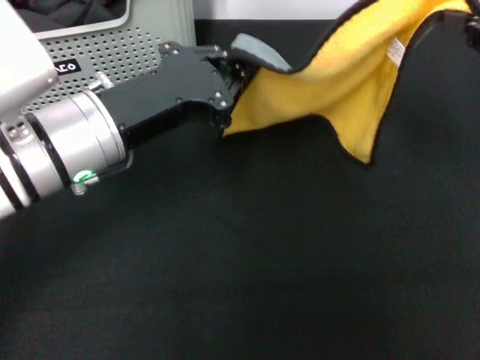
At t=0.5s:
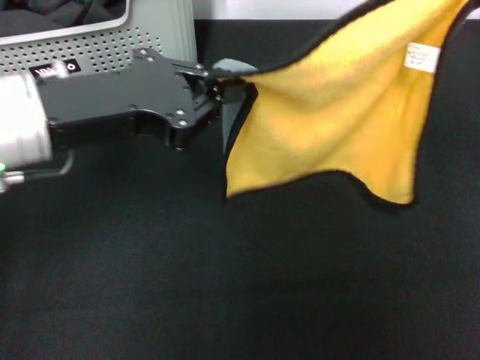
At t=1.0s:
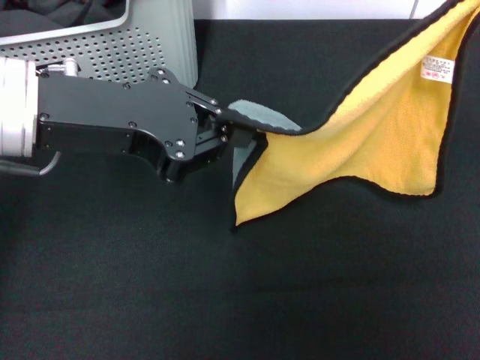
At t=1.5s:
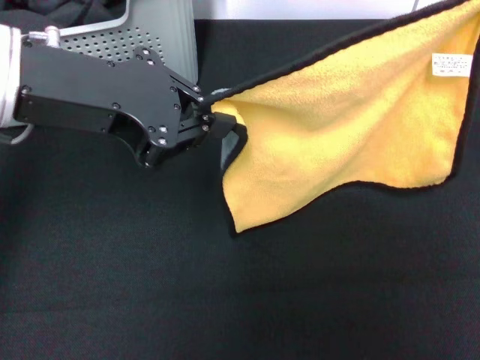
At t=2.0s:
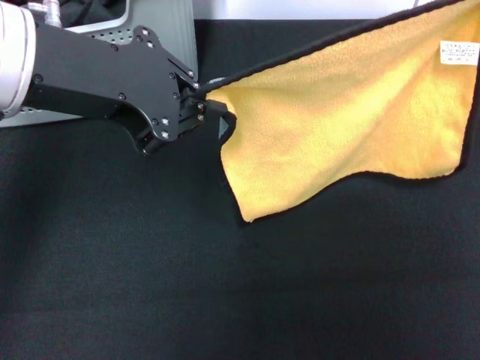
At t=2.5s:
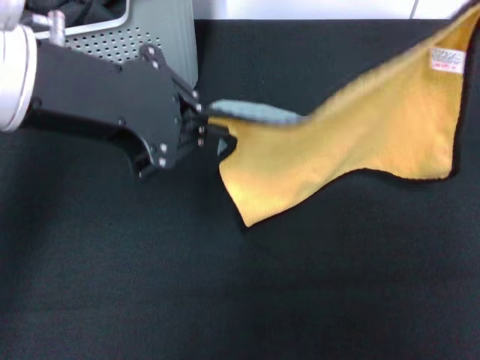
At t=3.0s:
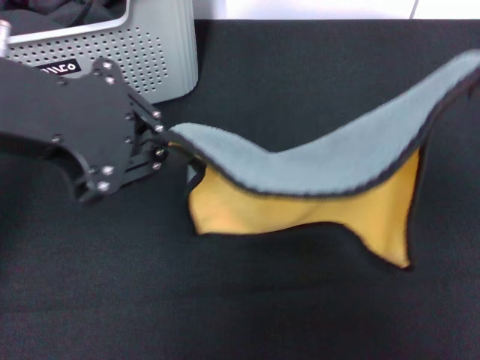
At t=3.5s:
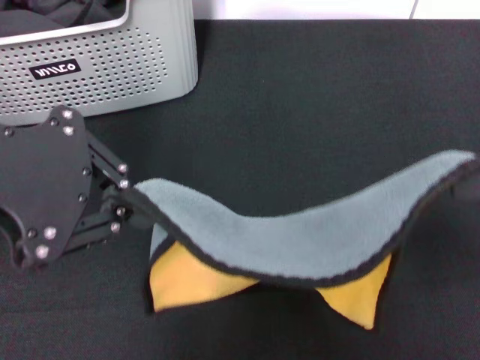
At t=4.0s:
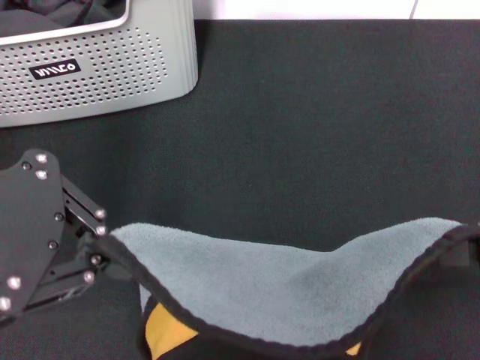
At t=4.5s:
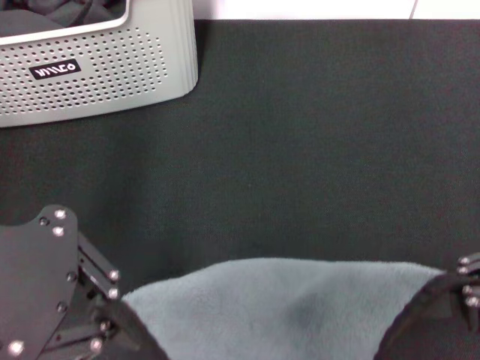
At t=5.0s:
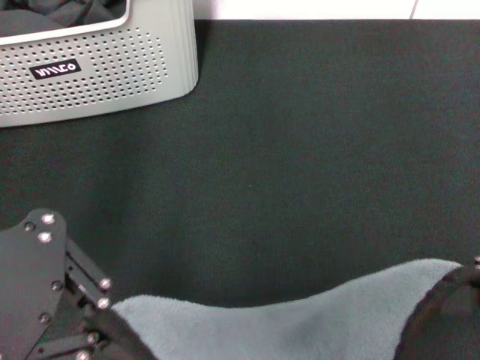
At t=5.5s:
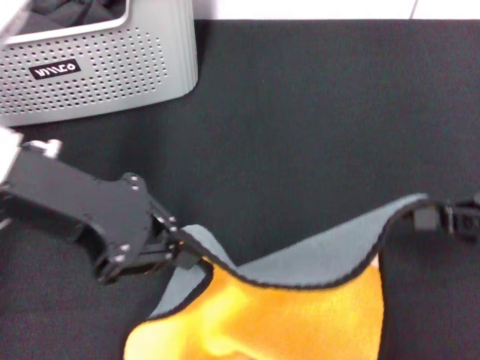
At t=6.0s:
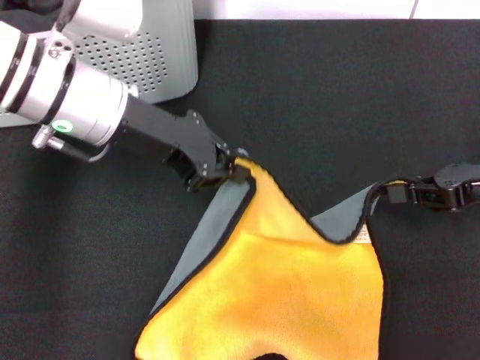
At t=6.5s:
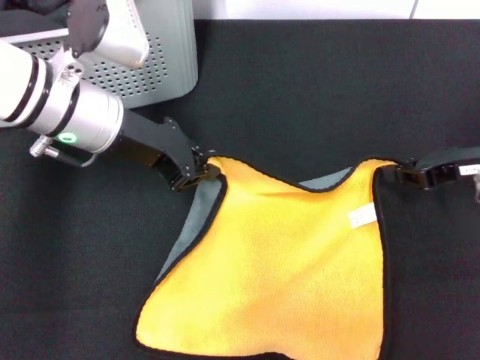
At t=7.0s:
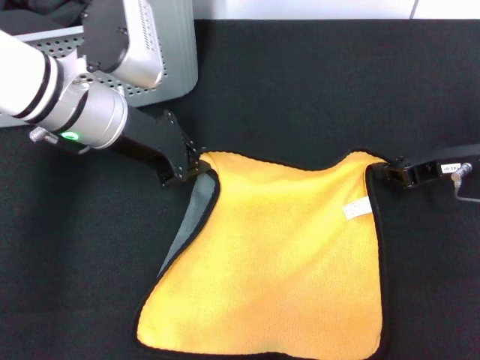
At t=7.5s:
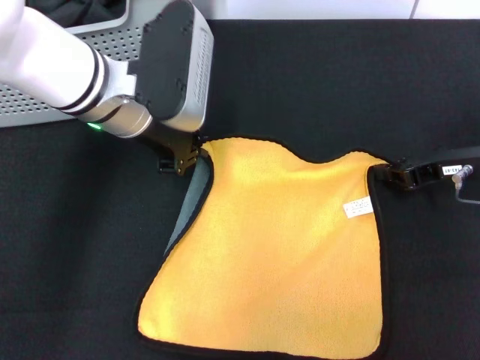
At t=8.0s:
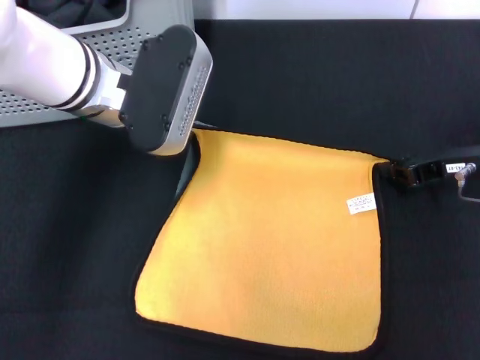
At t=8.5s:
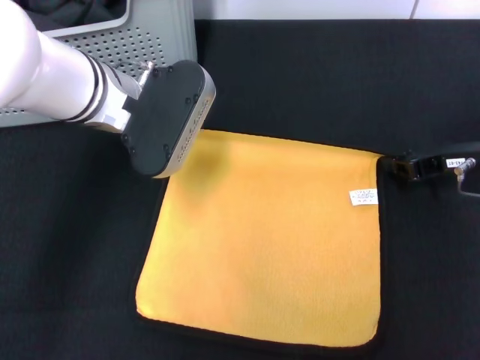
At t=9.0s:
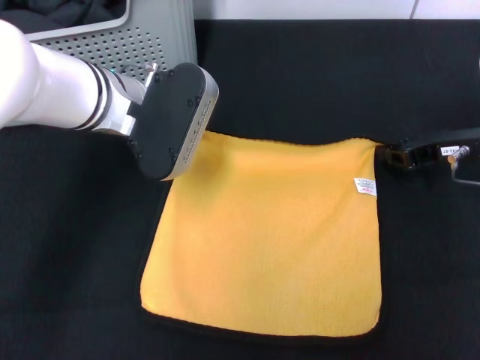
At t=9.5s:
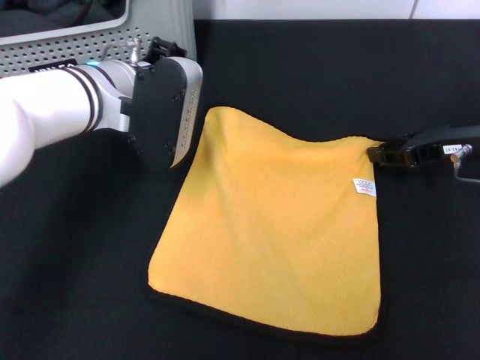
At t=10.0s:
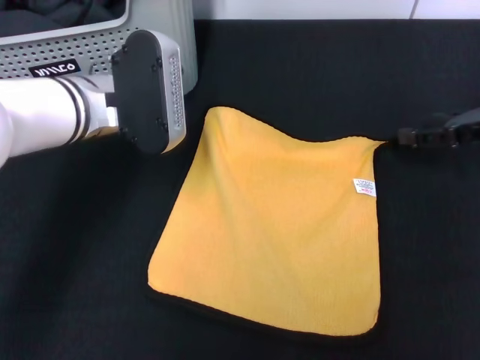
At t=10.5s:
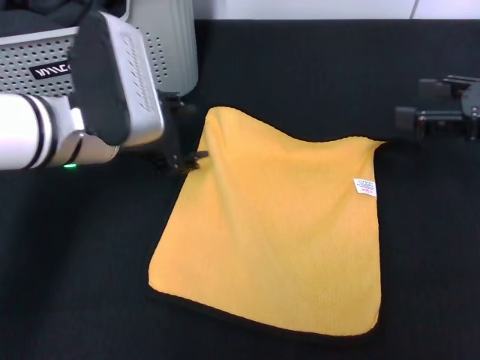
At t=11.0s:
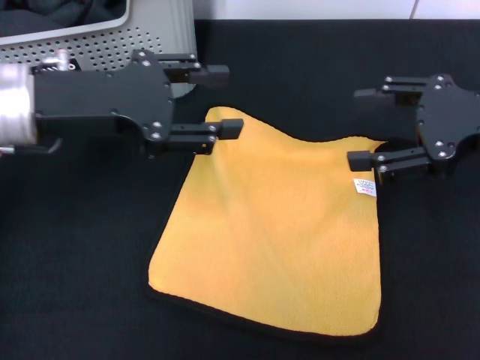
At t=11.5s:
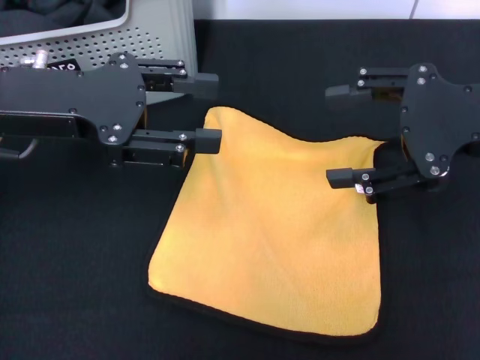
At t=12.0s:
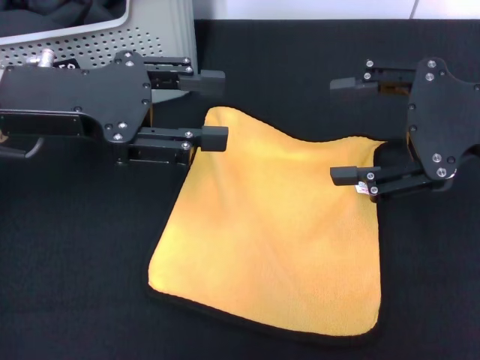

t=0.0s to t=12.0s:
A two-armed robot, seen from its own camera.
Task of the whole recording: pick up the towel from the storage box and lay it flat on the black tablecloth.
Step, t=0.0s to t=9.5s: Spread the towel flat with the right gripper.
t=0.0s to t=2.0s: The left gripper shifts about 15 cm upward; the right gripper shifts about 5 cm upward.
t=2.0s to t=4.0s: The left gripper moves backward and to the left, roughly 10 cm; the right gripper heads backward and downward, covering about 15 cm.
t=4.0s to t=6.0s: The left gripper shifts roughly 20 cm forward, downward and to the right. Meanwhile the right gripper moves forward and downward, roughly 20 cm.
t=6.0s to t=8.0s: The right gripper shifts by about 5 cm.
t=8.0s to t=10.0s: The right gripper opens. The left gripper opens.
t=10.0s to t=12.0s: The right gripper goes some 15 cm upward, backward and to the left. Meanwhile the left gripper is displaced upward, to the left and backward by some 10 cm.
